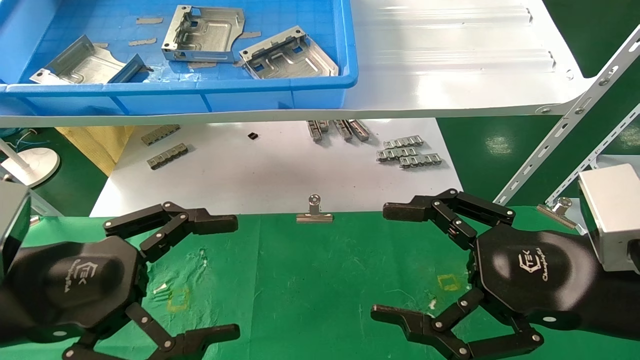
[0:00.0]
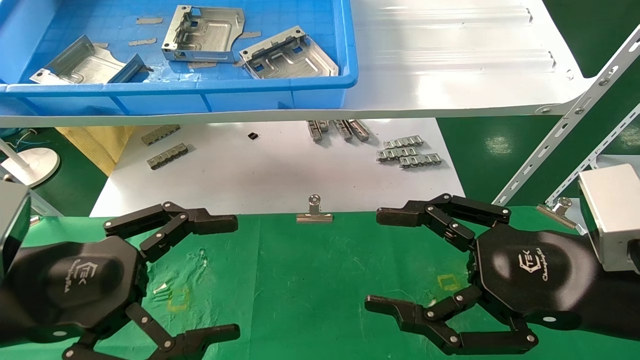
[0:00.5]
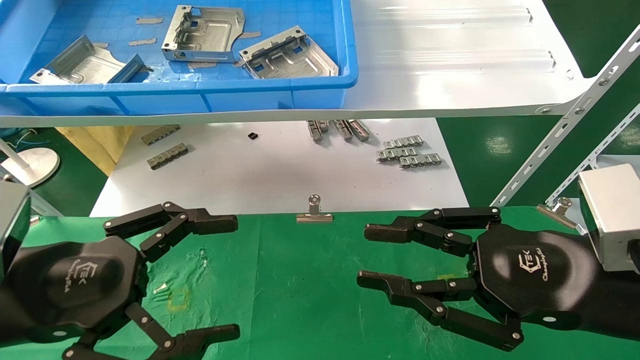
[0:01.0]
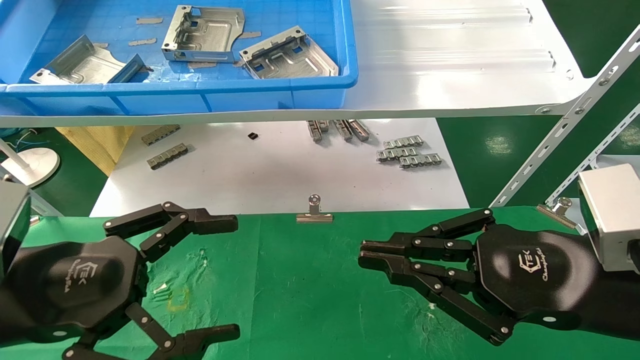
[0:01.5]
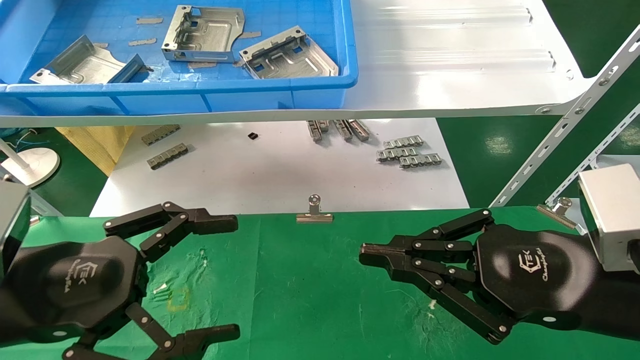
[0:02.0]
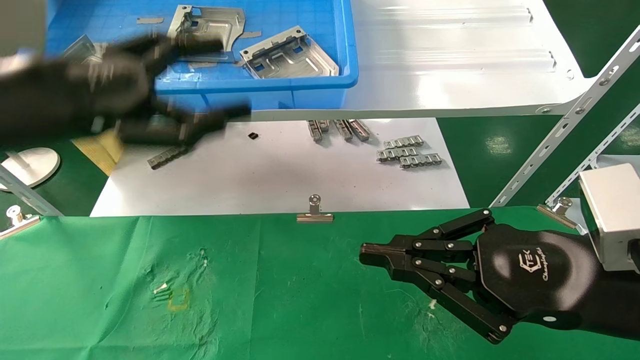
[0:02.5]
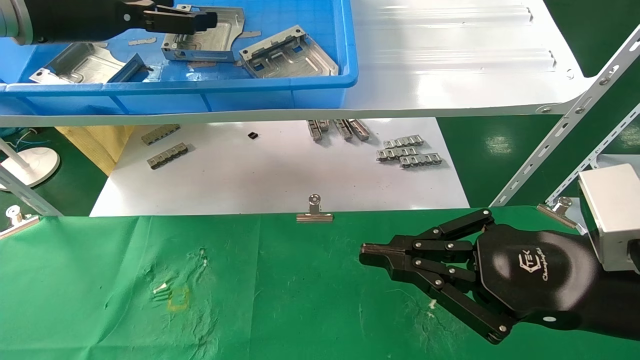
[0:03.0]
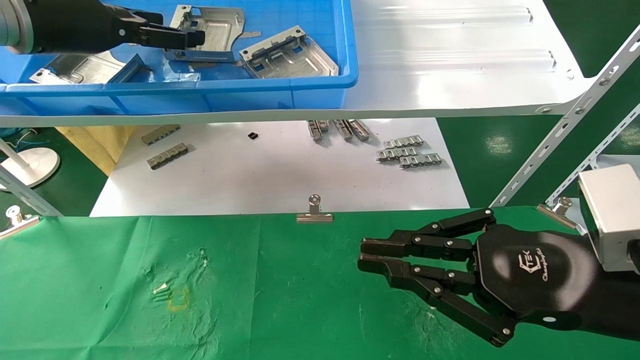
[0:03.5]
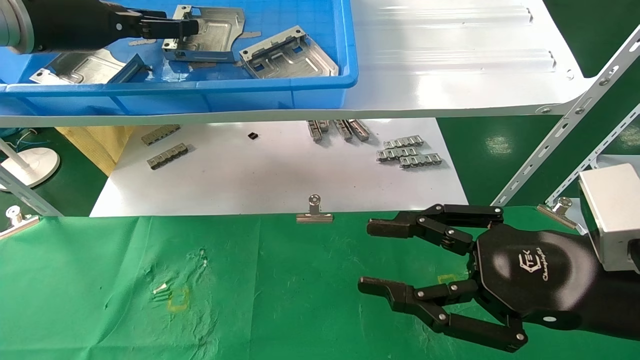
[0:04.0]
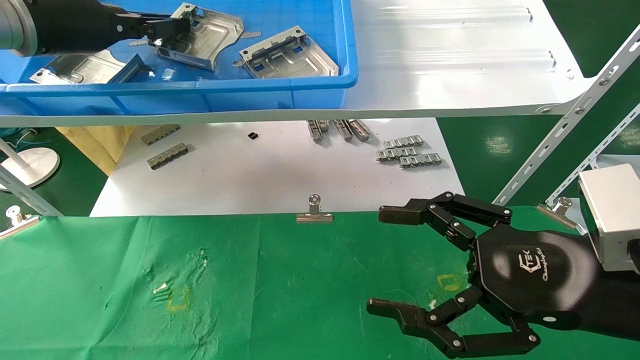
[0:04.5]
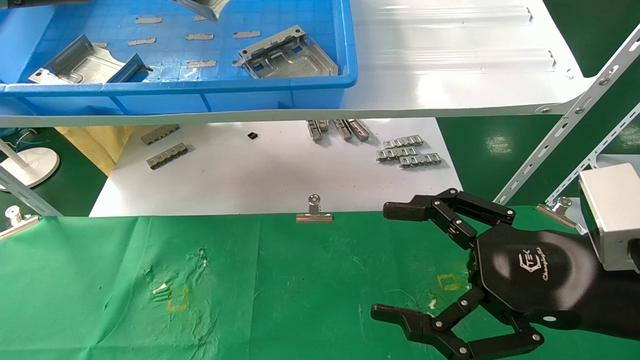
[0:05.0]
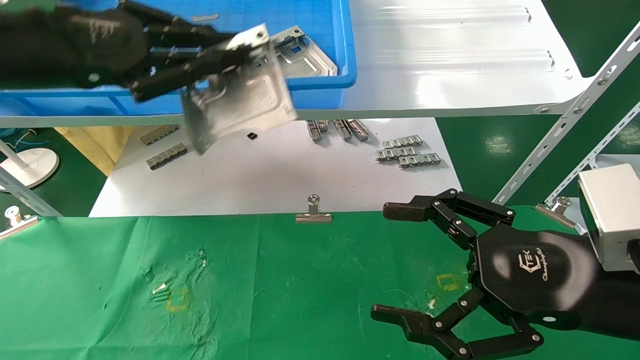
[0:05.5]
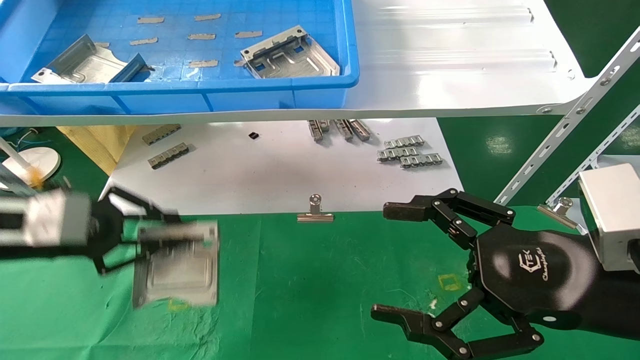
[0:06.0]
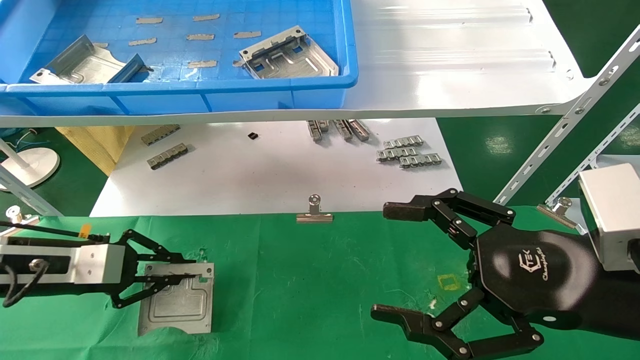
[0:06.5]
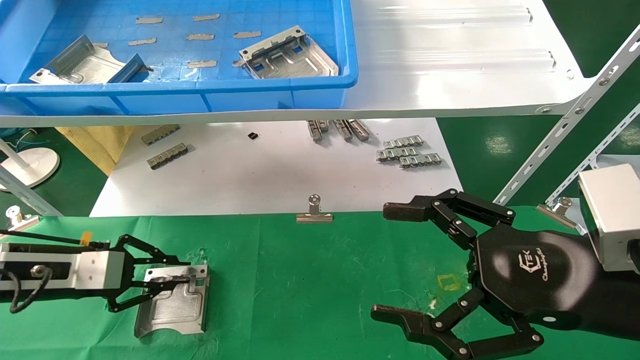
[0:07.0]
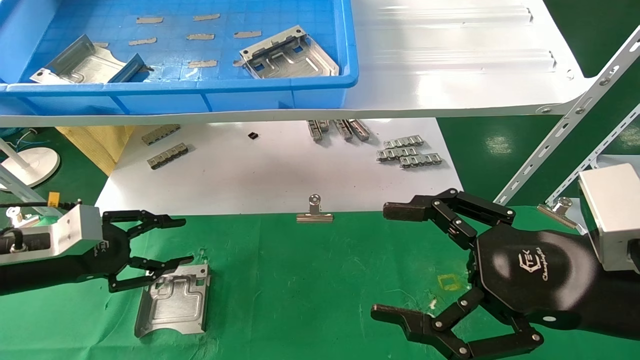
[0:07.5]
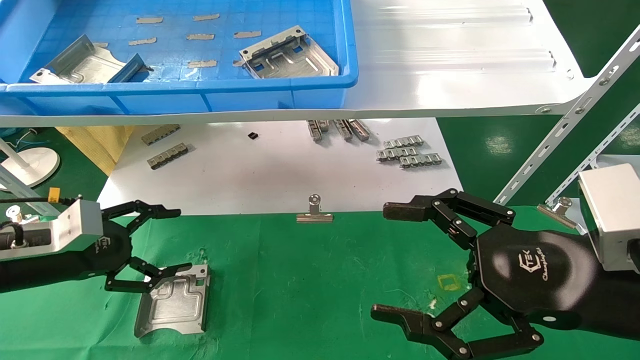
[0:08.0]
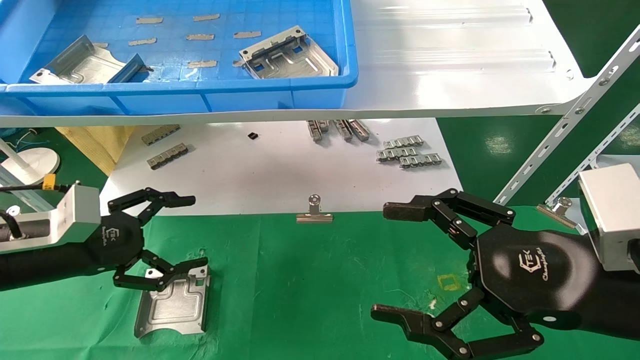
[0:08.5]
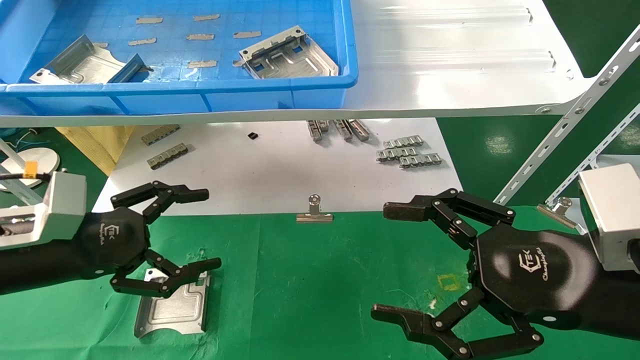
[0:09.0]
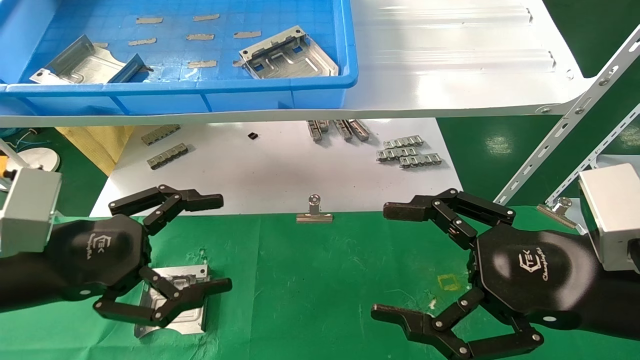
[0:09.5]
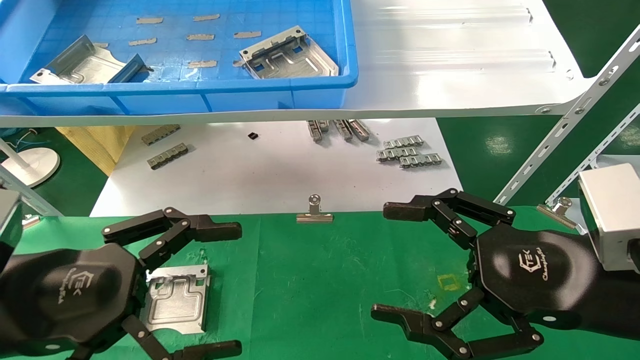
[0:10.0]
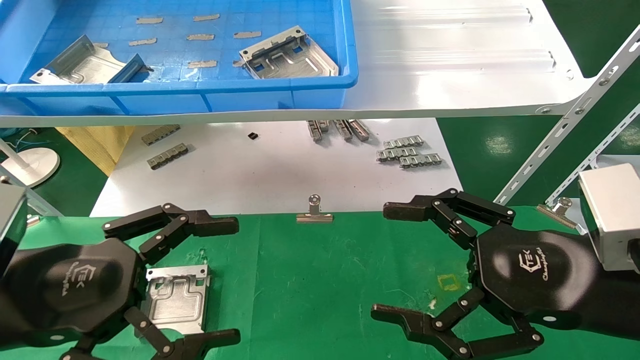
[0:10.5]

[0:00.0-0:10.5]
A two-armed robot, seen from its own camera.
Task of the whole recording: use the mechanical arm to pick up the parts and place them on the table.
Step, 0:02.5 to 0:04.5: Pick up the hard drive bracket from the feeding area.
Step, 0:05.0 to 0:07.0: Place the hard drive bracket into the box.
0:00.0 to 0:02.0: The right gripper closes up.
0:02.0 to 0:04.0: The left gripper heads upward and forward, covering approximately 30 cm.
0:04.0 to 0:06.5: The right gripper opens its fingers; the left gripper goes some 25 cm downward, and closes up.
0:06.5 to 0:08.5: The left gripper opens its fingers.
0:08.5 to 0:10.5: The left gripper shifts some 15 cm backward and to the right.
